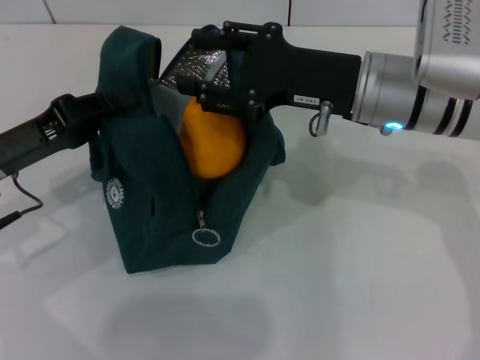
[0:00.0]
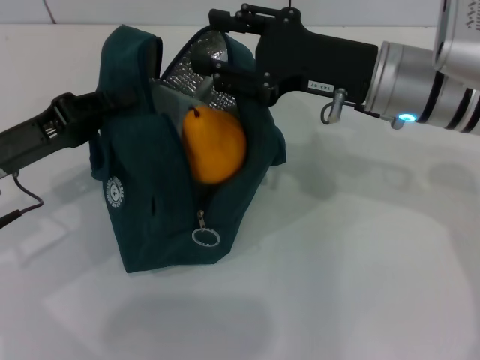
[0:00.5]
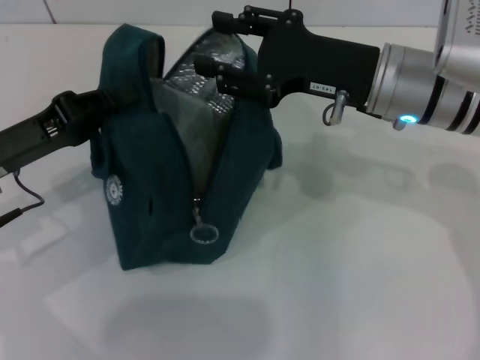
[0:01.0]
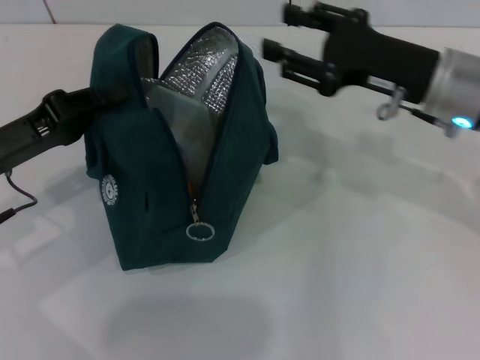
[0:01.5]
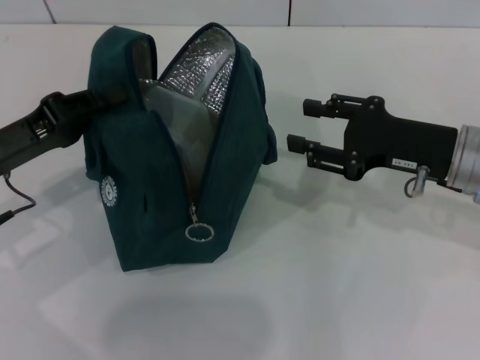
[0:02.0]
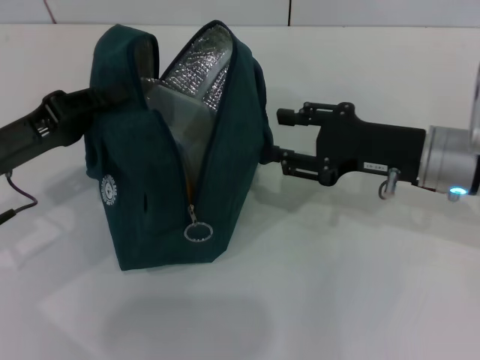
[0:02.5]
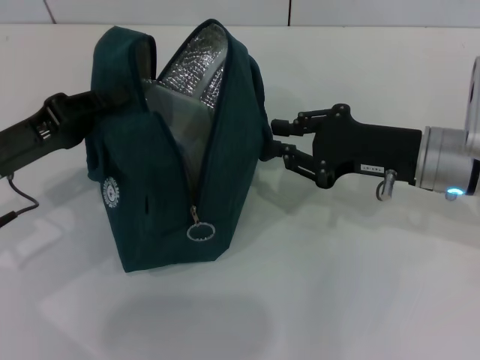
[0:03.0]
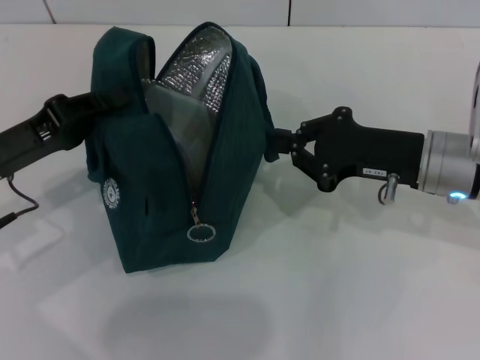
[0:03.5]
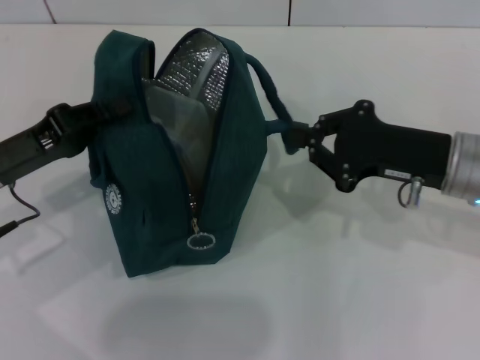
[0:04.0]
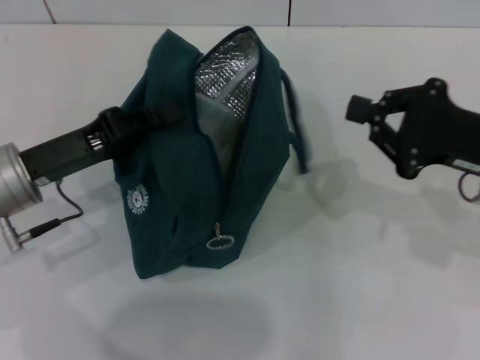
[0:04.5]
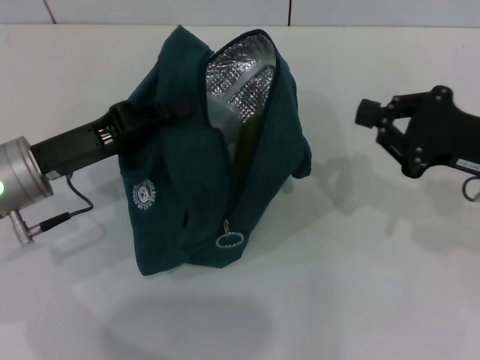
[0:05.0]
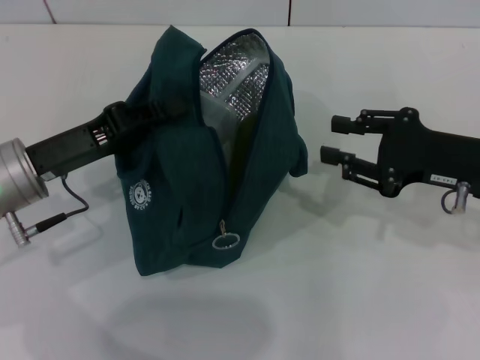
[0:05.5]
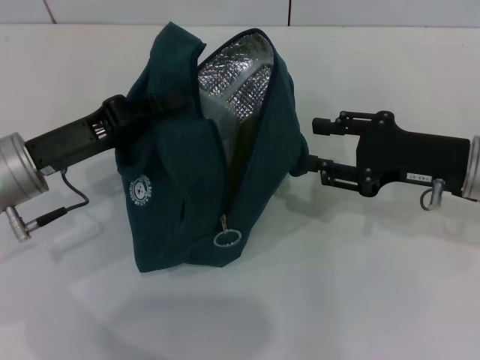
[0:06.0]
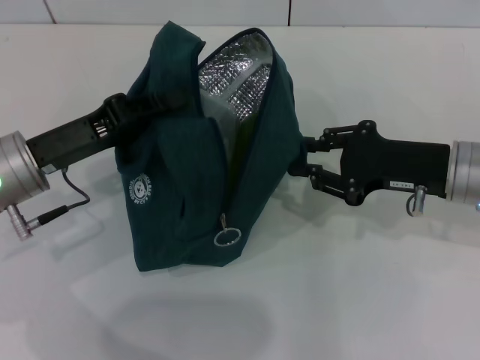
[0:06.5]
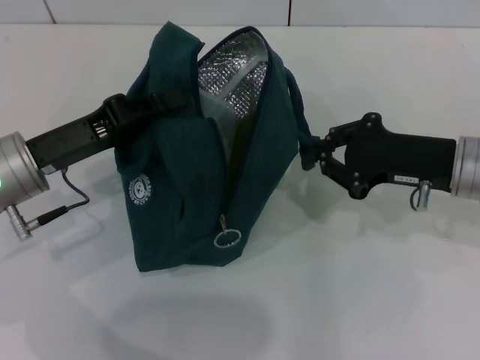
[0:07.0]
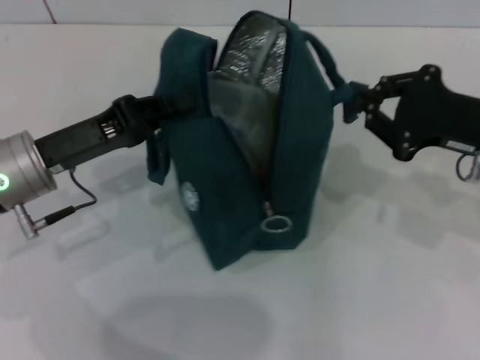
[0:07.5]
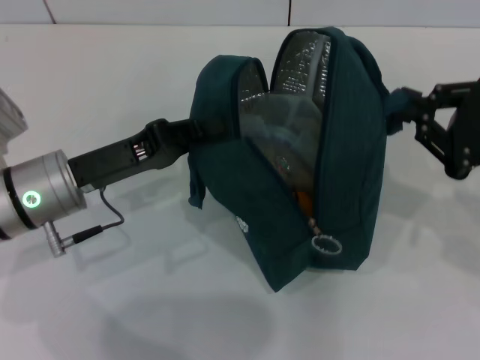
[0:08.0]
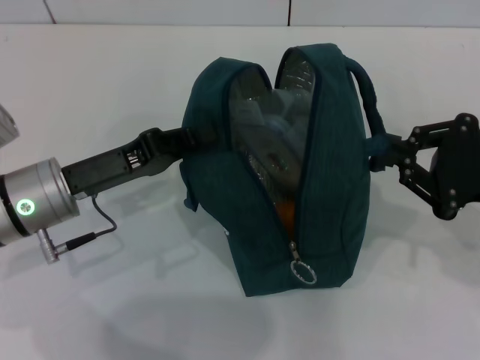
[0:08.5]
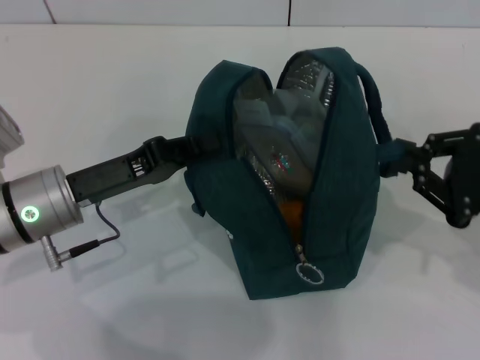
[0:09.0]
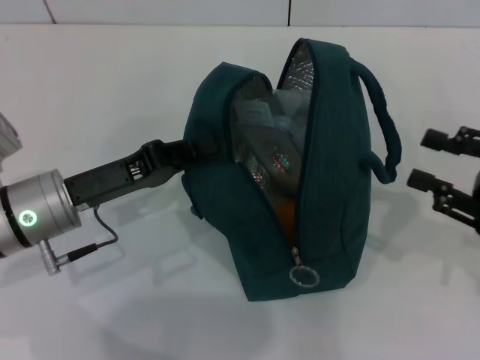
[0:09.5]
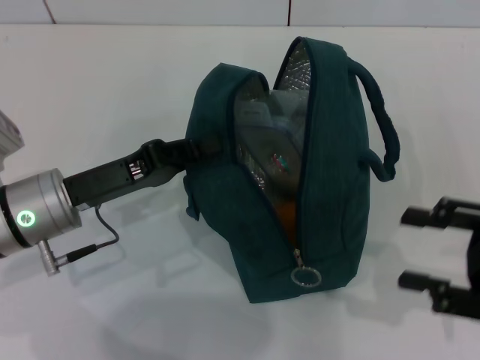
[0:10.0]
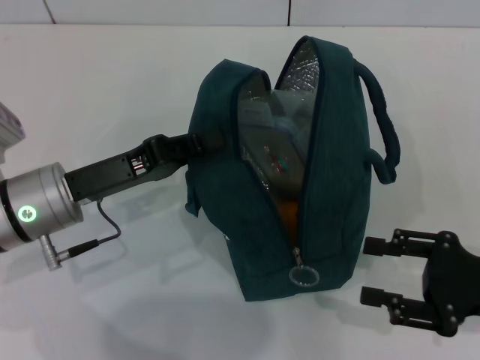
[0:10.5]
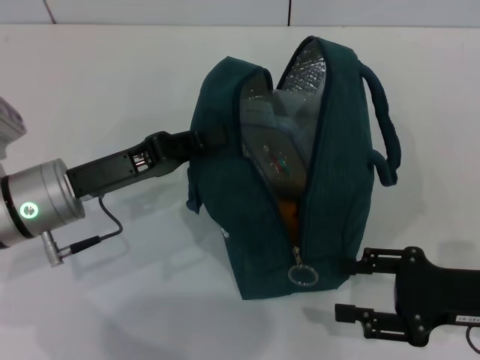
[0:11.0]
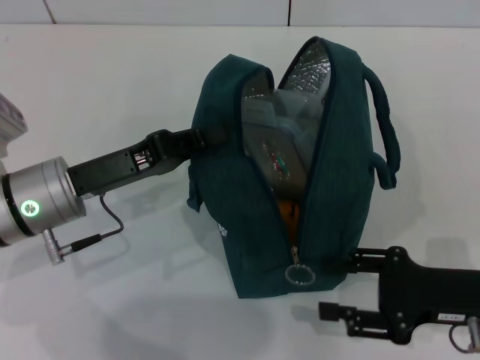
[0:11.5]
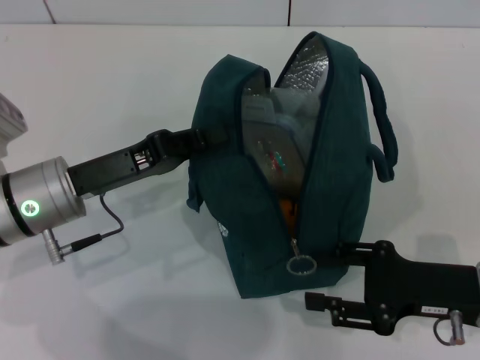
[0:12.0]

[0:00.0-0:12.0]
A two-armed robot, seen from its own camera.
Step, 0:01.0 to 0:09.0: Hold the lunch bag with your right hand.
0:00.0 to 0:02.0: The right gripper goes approximately 10 cm to the right and downward.
0:02.0 to 0:04.0: The right gripper closes its fingers.
0:04.0 to 0:06.0: The right gripper opens its fingers.
0:06.0 to 0:08.0: The right gripper moves to the right, roughly 5 cm, and closes its fingers.
0:08.0 to 0:10.0: The right gripper goes about 5 cm backward, and opens up.
0:10.0 to 0:12.0: The right gripper moves to the left and downward, about 10 cm.

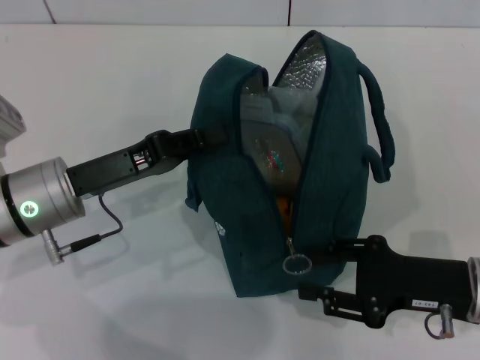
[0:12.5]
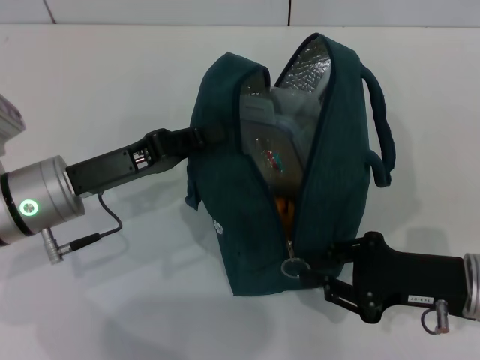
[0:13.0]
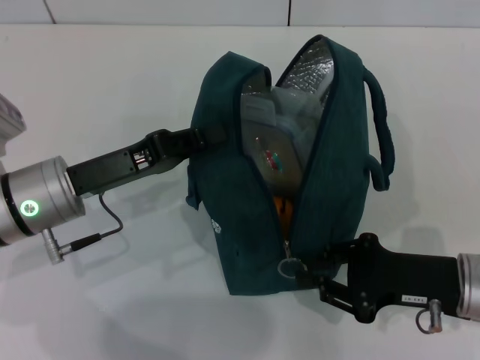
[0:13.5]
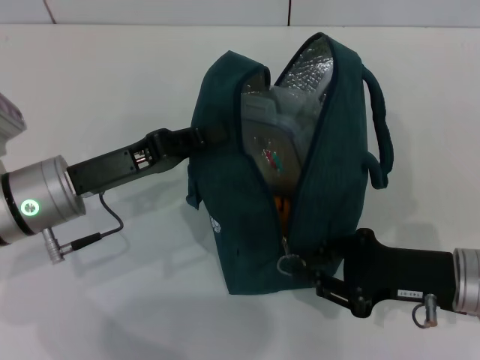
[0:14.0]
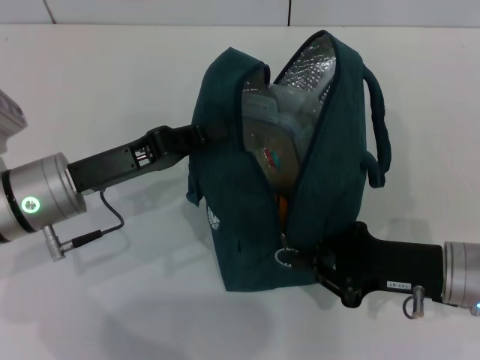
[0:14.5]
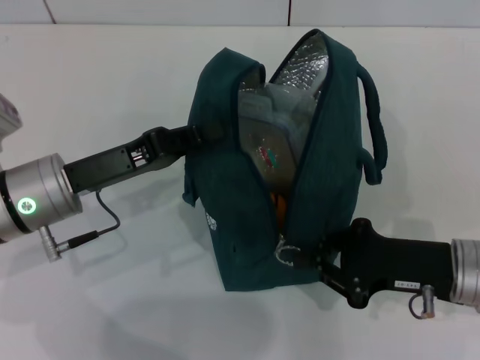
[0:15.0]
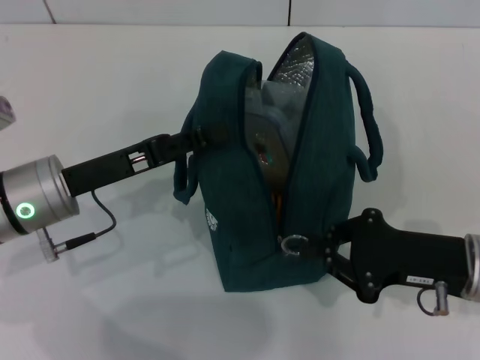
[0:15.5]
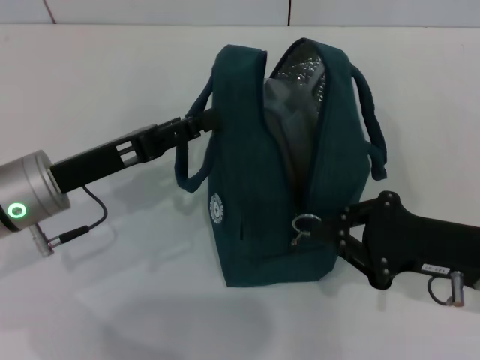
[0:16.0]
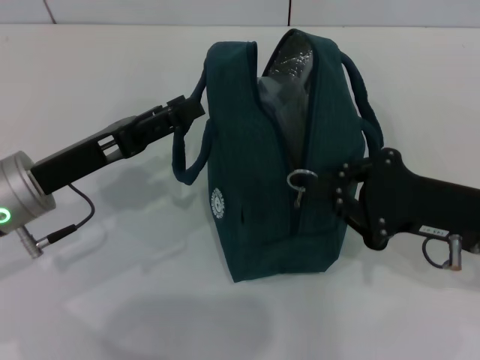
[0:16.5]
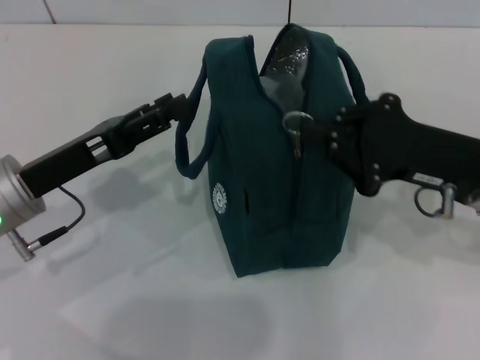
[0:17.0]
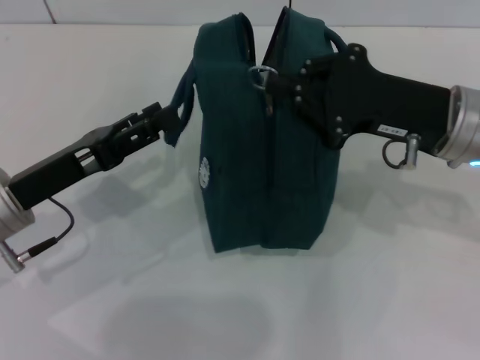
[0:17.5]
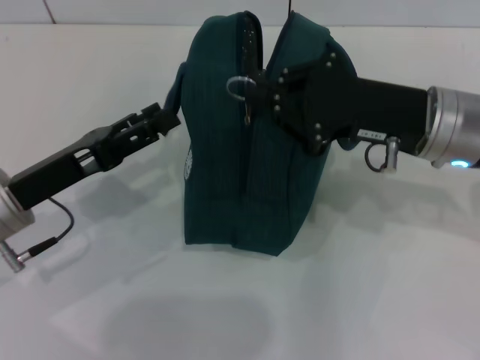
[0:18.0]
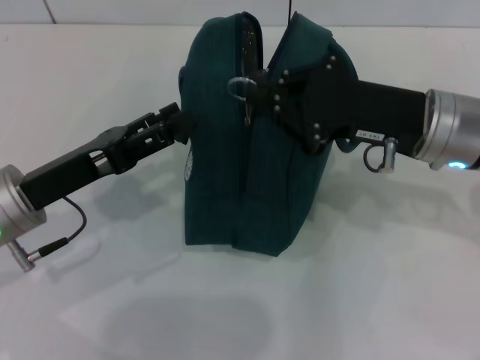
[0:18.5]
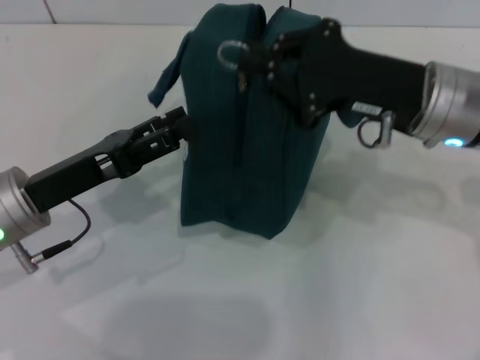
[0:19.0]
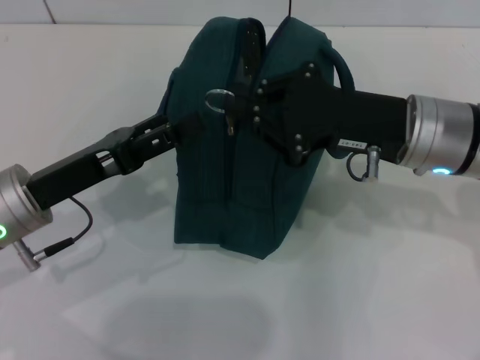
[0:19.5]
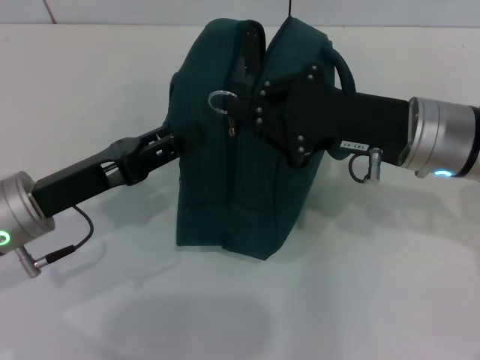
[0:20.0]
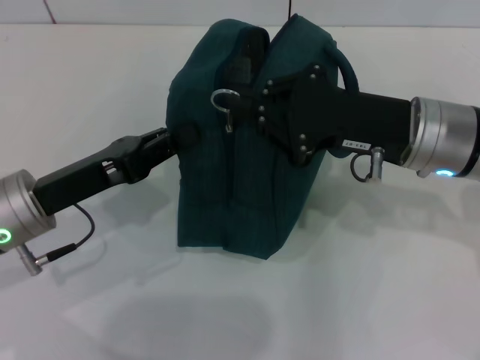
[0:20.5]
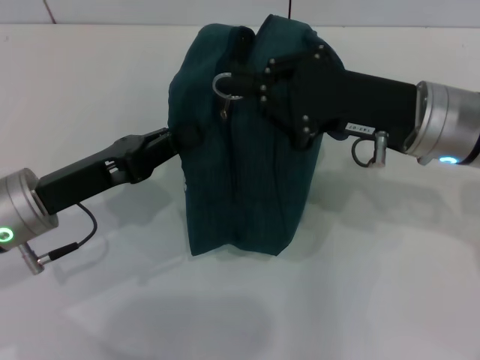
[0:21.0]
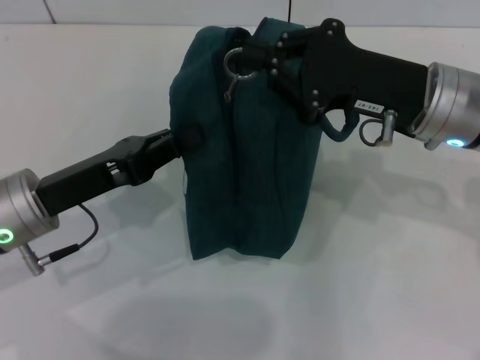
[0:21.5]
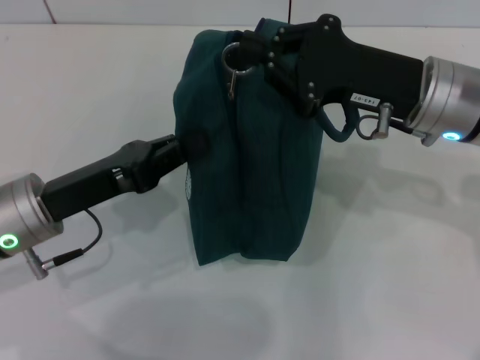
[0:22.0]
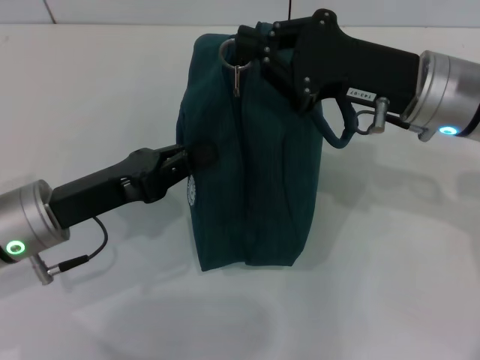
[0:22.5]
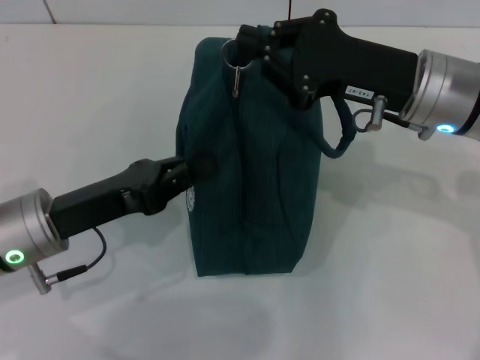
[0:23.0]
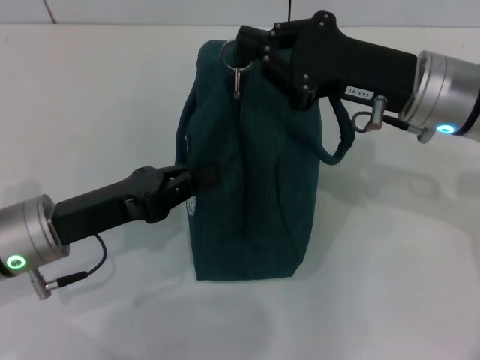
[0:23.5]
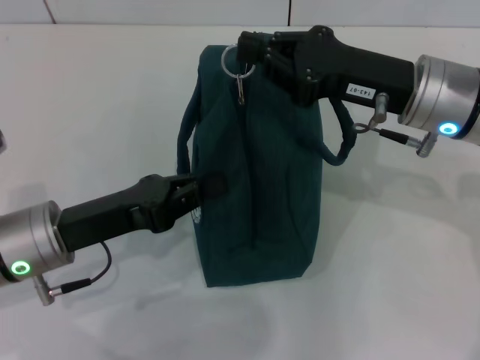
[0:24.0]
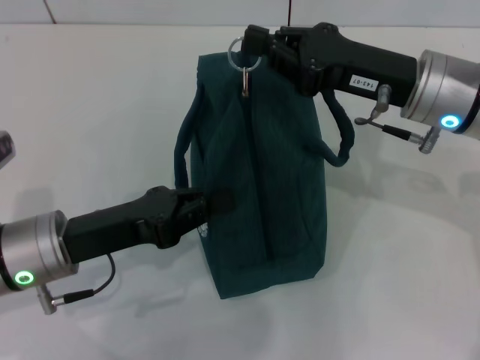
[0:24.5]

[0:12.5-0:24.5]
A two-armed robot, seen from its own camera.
Step, 0:12.5 to 0:16.0: Hold the lunch bag with your left hand.
0:12.5 to 0:14.5: The right gripper closes.
0:14.5 to 0:16.5: The left gripper opens its fingers; the right gripper travels upward by roughly 5 cm.
0:16.5 to 0:18.5: The right gripper shifts approximately 10 cm forward and to the left.
0:18.5 to 0:20.5: The left gripper closes.

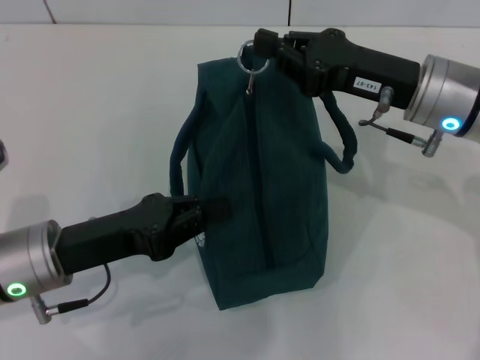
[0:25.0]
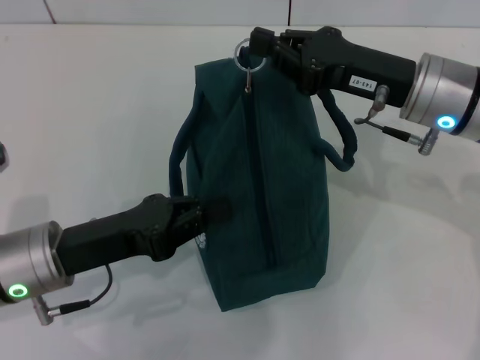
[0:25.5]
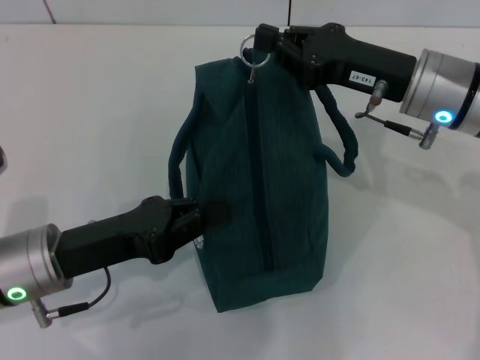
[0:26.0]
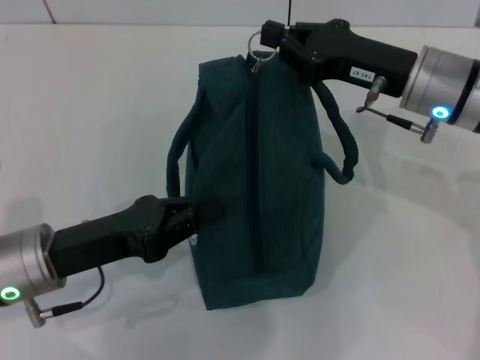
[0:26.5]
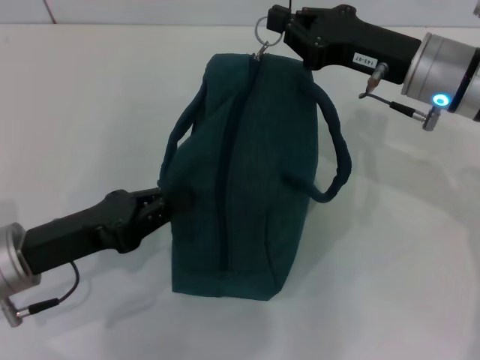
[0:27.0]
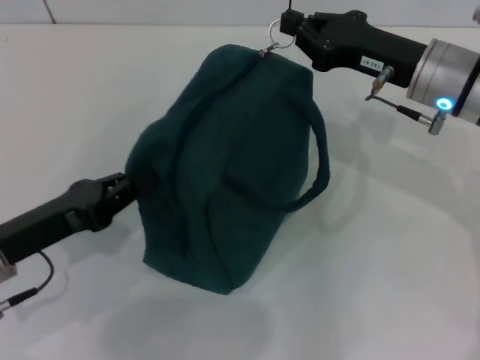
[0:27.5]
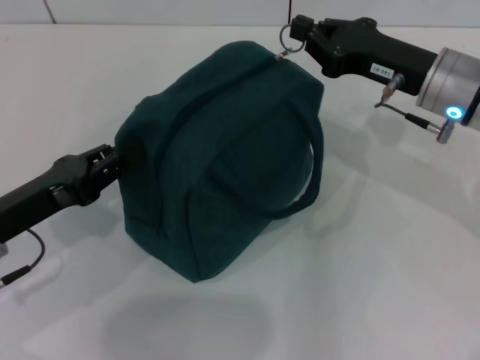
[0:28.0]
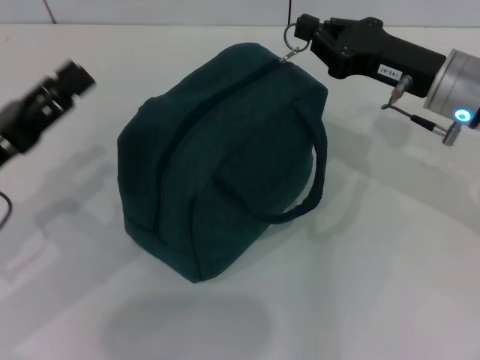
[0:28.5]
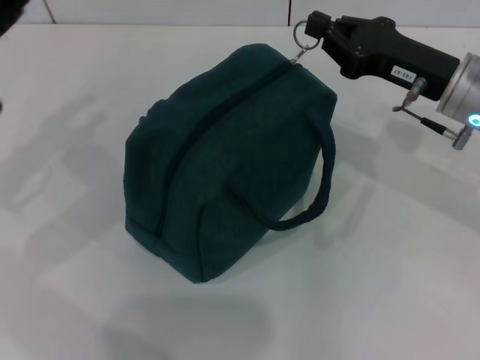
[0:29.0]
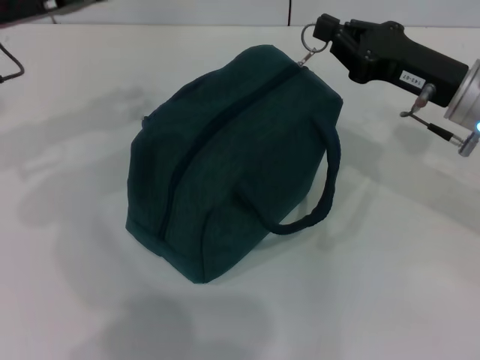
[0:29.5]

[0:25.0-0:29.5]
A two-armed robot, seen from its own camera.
0:27.0 to 0:29.5: The left gripper shifts about 20 cm forward and upward, and opens its fingers.
